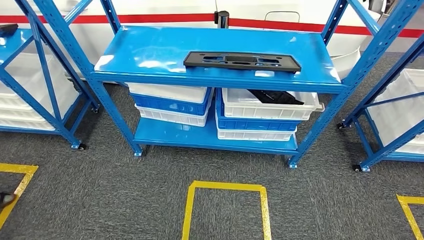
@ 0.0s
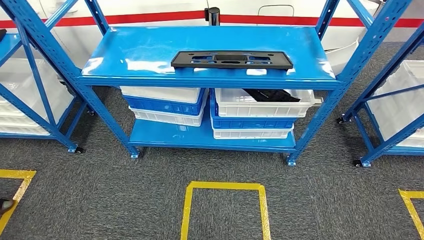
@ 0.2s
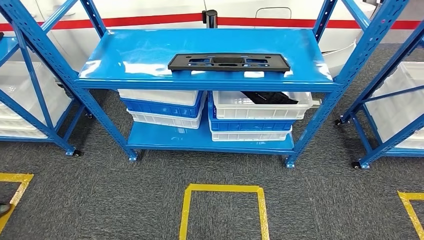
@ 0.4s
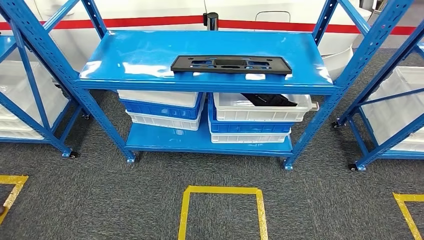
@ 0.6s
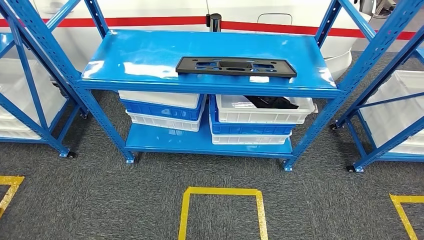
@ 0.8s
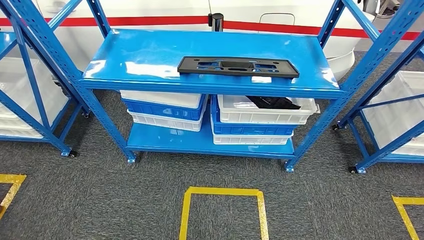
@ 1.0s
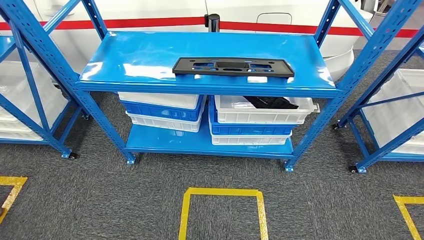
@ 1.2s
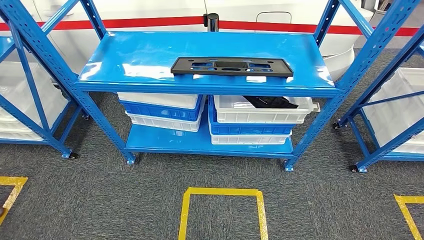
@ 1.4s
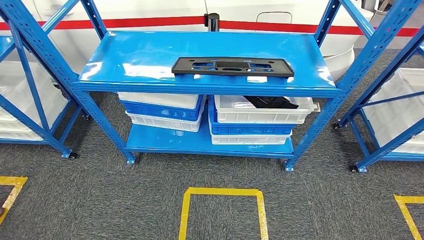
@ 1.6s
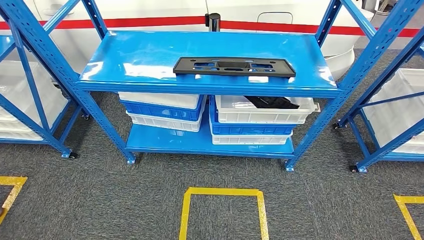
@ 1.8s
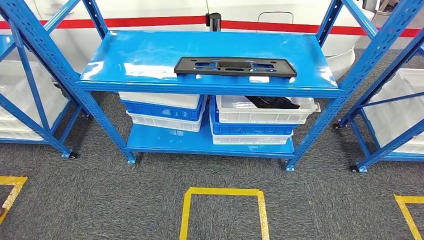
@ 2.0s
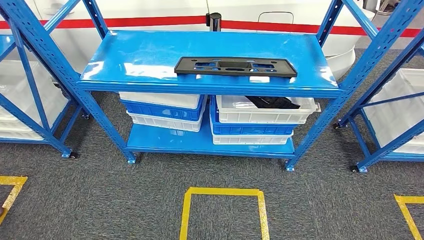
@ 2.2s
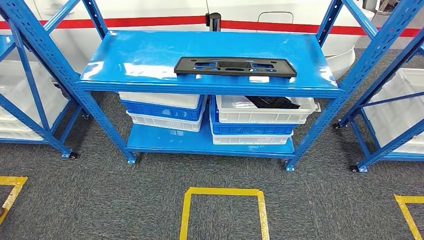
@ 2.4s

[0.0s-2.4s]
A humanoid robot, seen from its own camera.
Step, 0.0s to 2.4s: Move to the initial position of the shelf.
